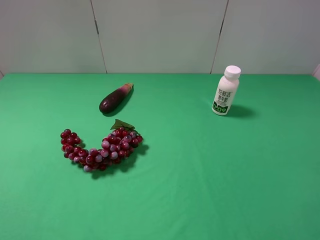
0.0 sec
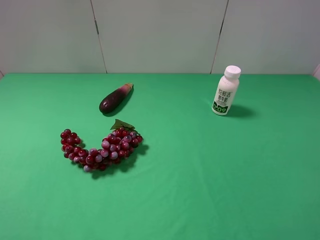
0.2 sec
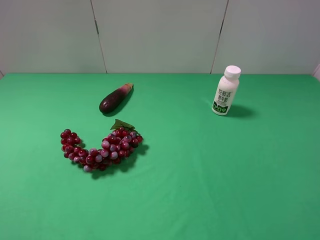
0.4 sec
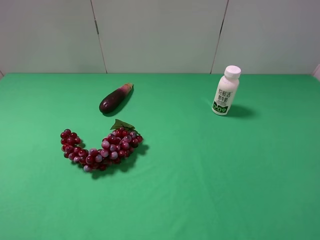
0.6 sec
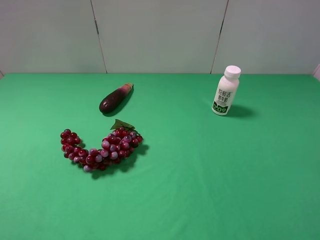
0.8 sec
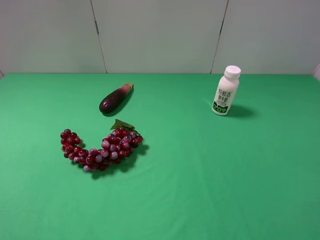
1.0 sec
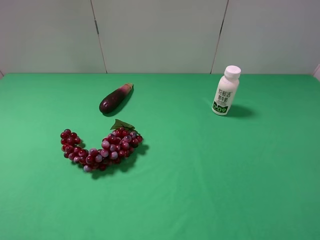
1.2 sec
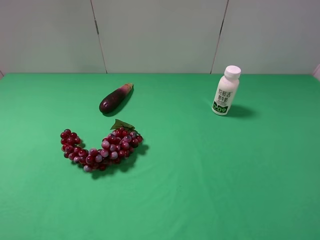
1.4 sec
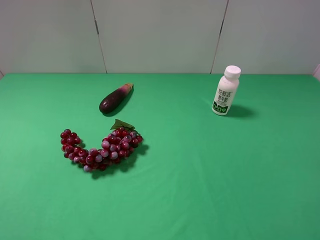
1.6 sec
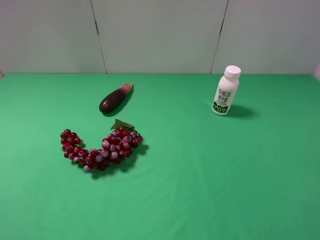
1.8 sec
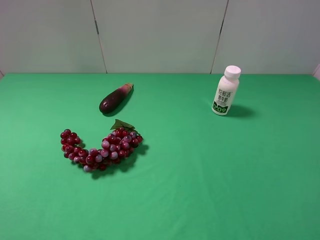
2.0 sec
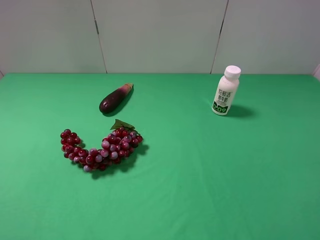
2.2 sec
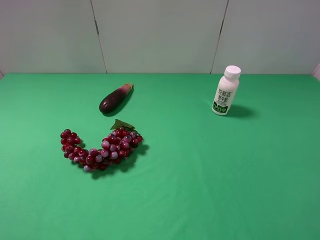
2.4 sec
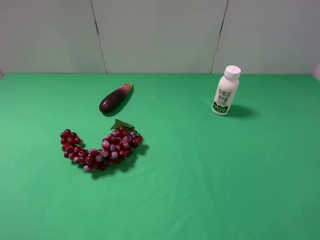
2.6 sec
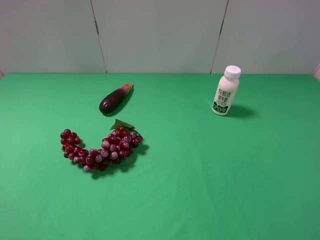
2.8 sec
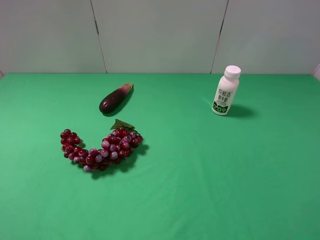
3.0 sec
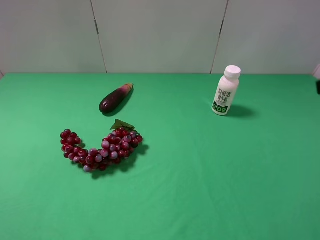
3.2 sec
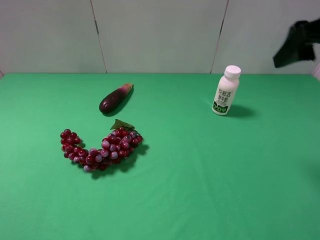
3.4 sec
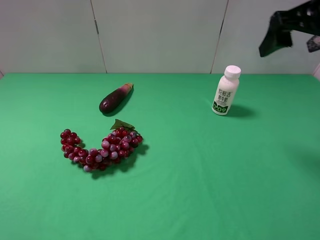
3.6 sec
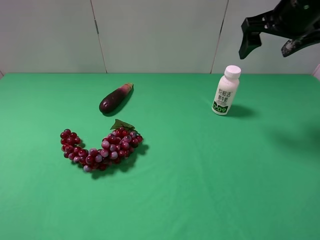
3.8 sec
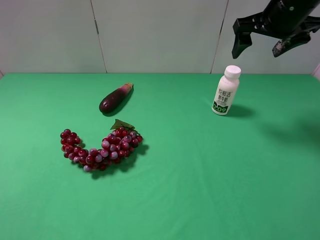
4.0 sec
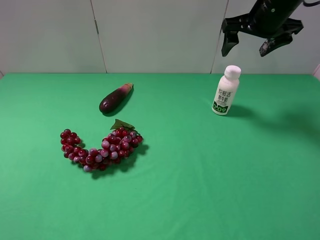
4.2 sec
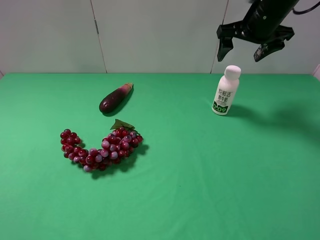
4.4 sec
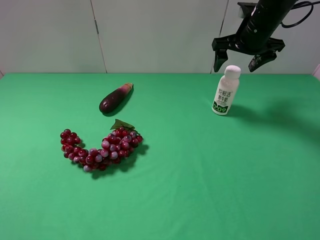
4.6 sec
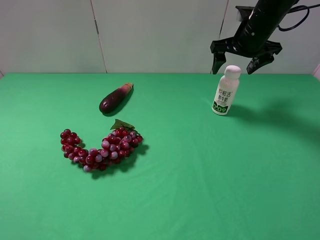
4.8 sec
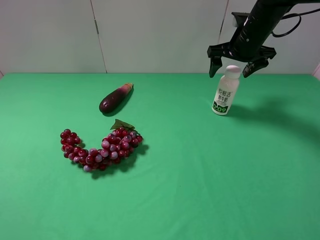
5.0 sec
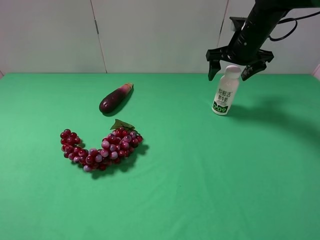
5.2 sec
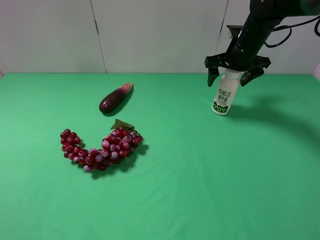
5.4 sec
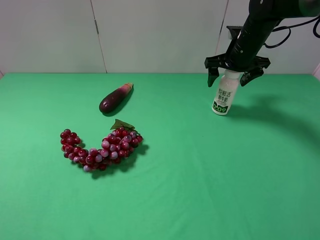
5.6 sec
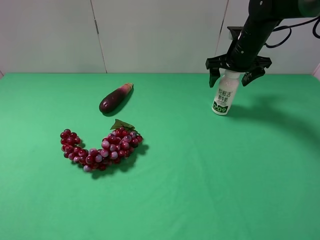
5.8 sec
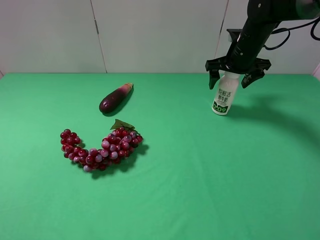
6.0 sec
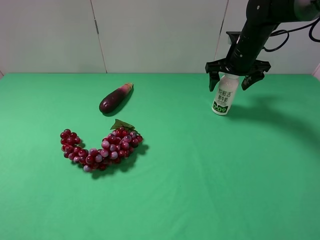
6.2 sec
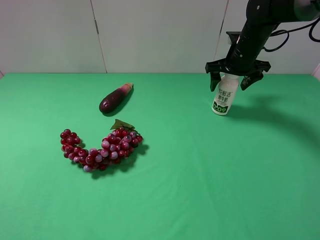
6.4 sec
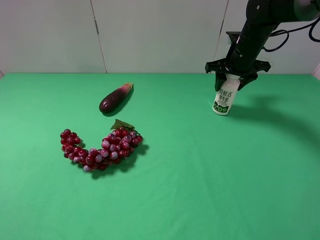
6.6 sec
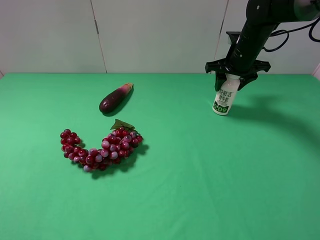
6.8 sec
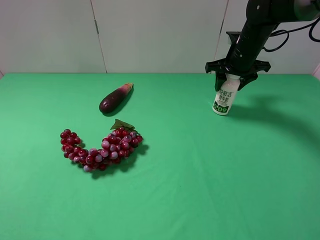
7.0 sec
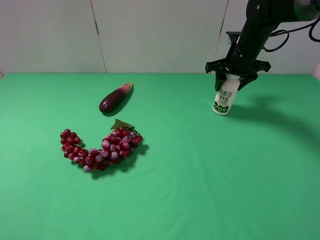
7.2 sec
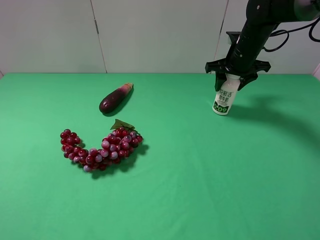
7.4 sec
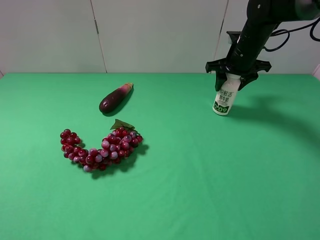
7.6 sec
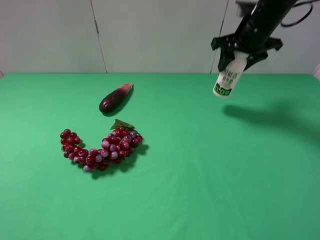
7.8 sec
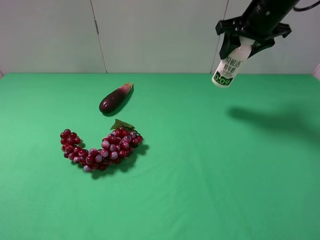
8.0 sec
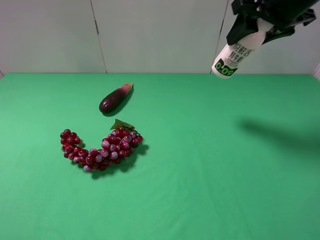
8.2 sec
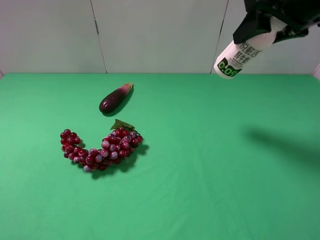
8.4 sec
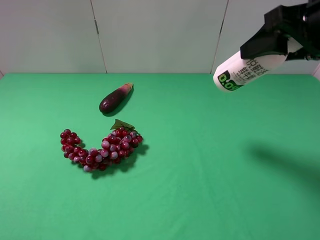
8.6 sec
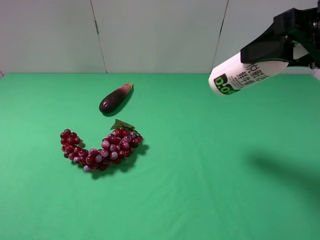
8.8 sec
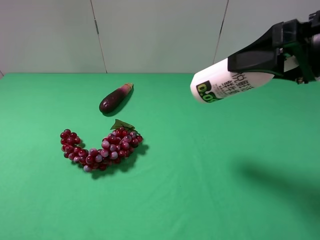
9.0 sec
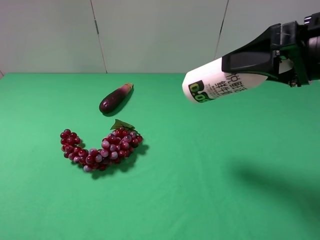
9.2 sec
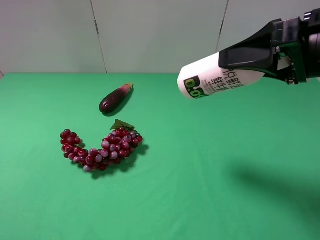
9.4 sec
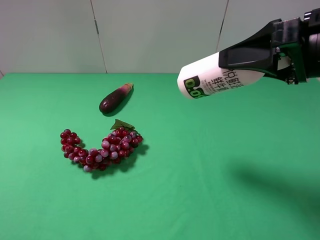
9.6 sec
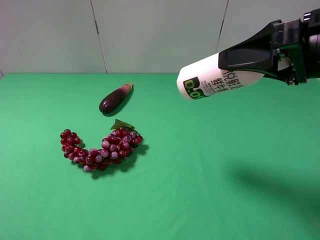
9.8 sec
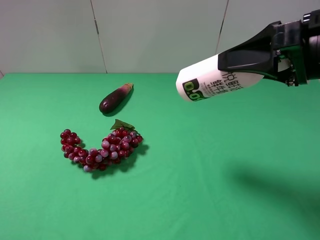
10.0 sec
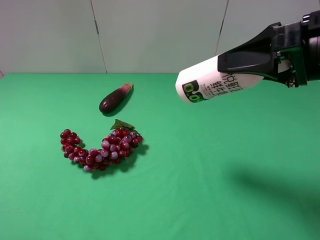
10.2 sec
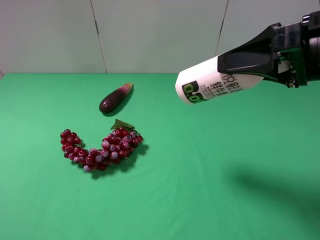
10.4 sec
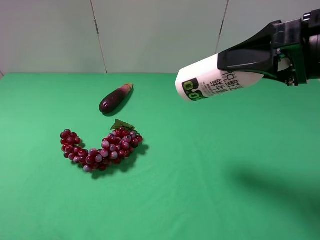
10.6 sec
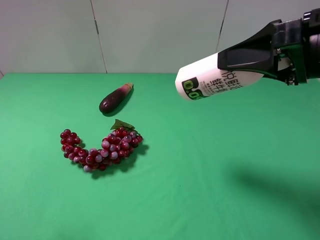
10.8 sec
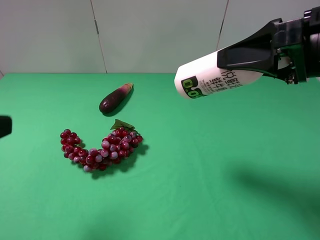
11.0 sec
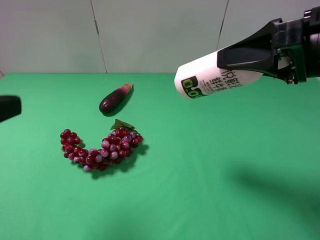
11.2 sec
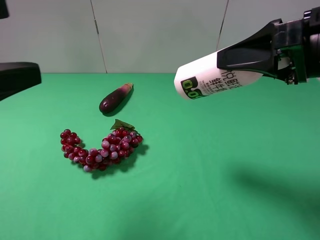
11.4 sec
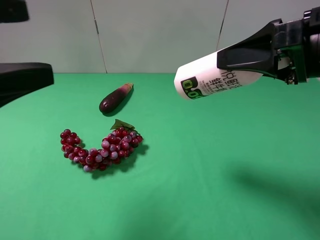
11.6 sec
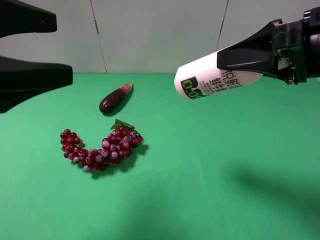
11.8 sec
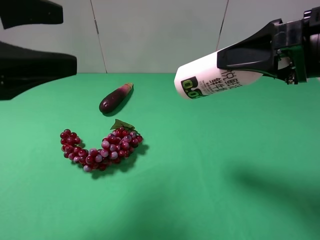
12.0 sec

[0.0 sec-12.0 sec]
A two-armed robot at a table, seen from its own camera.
Task of the whole recording: use the right gripper to pick up the item and transfer it from the right gripper to the left gripper.
0.0 sec to 1.6 sec: Both grippers stay about where they are.
3.0 sec to 4.4 sec: The right gripper heads forward, covering roughly 30 cm.
4.4 sec to 6.0 sec: The right gripper is displaced downward by approximately 10 cm.
6.0 sec to 7.6 sec: The right gripper closes.
7.6 sec to 9.0 sec: The right gripper moves backward and upward, approximately 25 cm.
9.0 sec to 10.4 sec: The grippers make only small movements.
10.4 sec to 12.0 sec: The left gripper moves forward and to the right, some 20 cm.

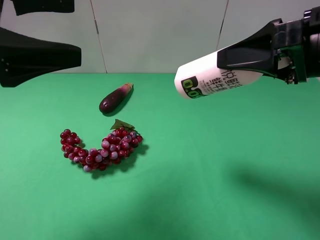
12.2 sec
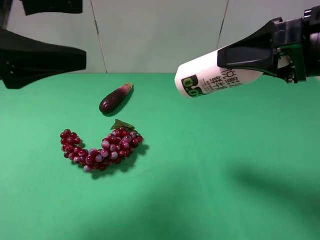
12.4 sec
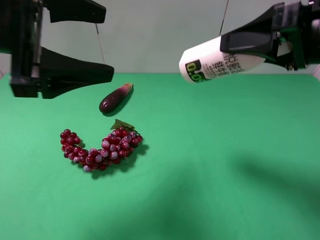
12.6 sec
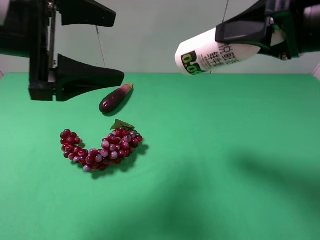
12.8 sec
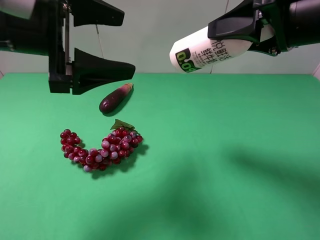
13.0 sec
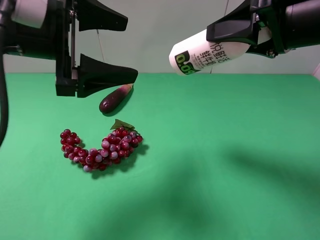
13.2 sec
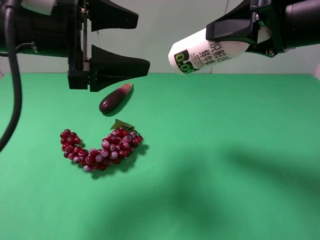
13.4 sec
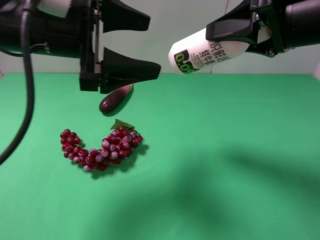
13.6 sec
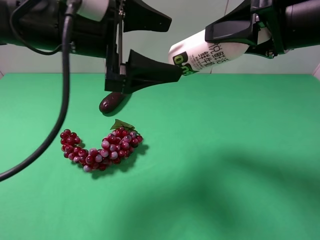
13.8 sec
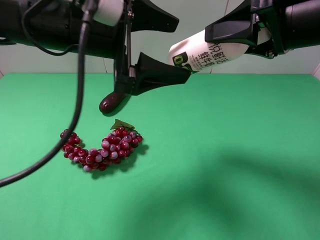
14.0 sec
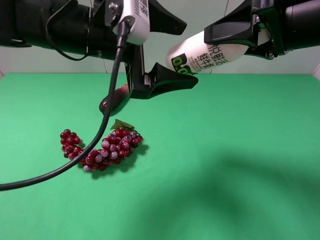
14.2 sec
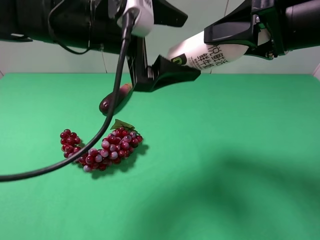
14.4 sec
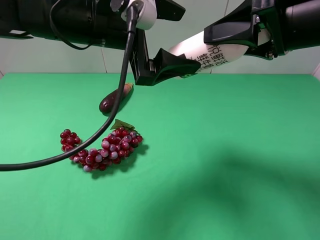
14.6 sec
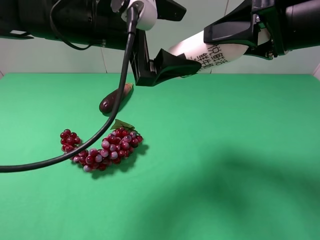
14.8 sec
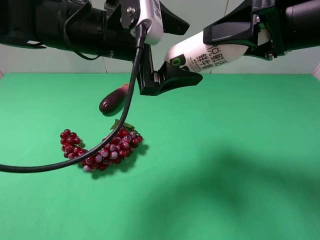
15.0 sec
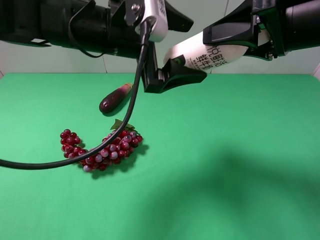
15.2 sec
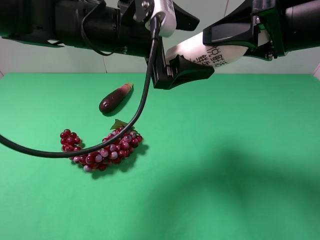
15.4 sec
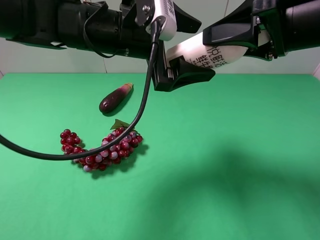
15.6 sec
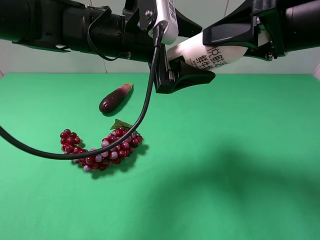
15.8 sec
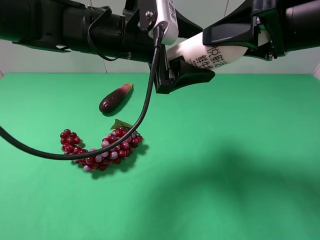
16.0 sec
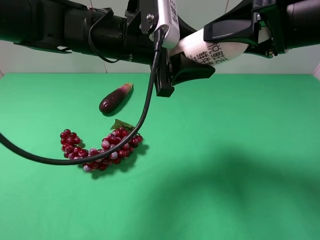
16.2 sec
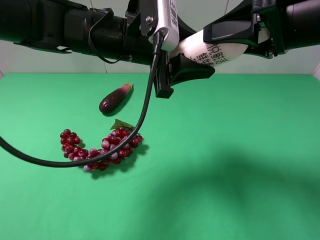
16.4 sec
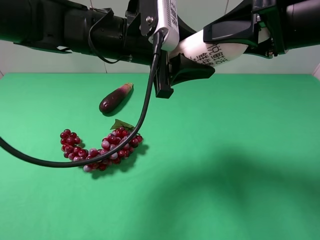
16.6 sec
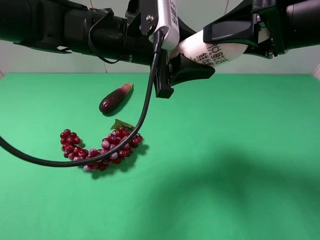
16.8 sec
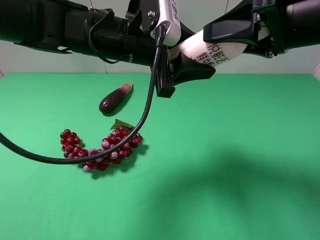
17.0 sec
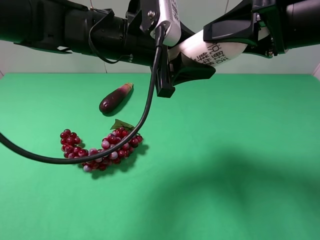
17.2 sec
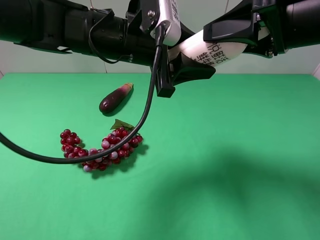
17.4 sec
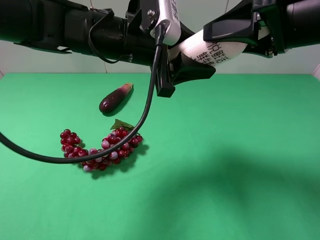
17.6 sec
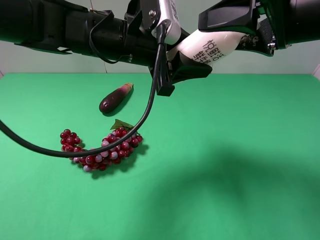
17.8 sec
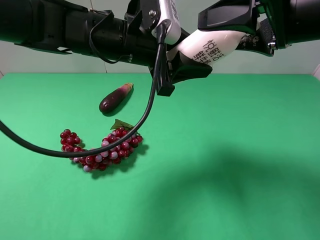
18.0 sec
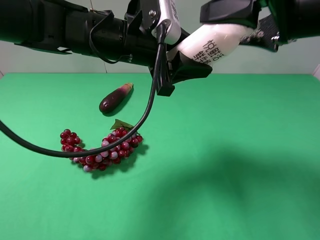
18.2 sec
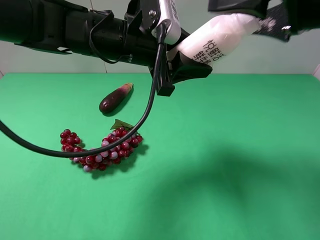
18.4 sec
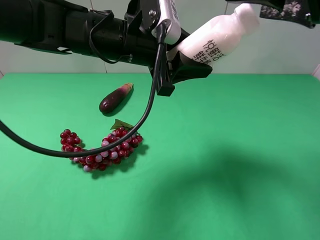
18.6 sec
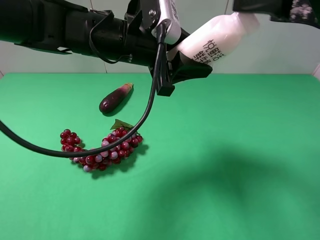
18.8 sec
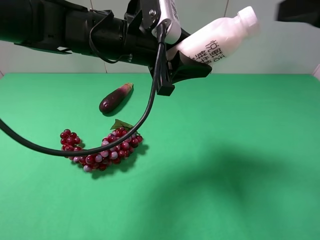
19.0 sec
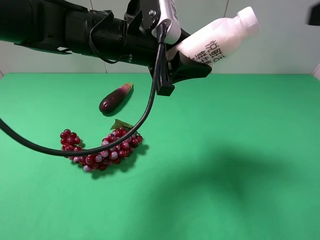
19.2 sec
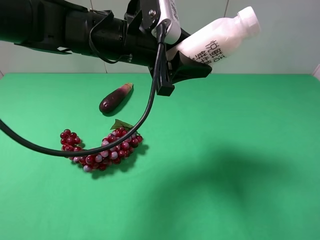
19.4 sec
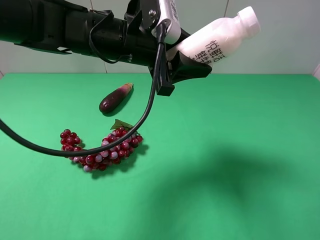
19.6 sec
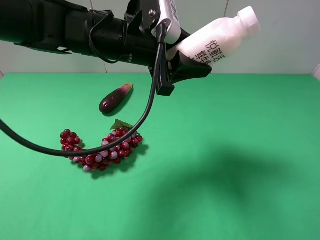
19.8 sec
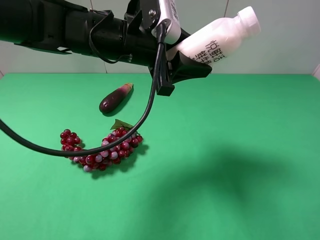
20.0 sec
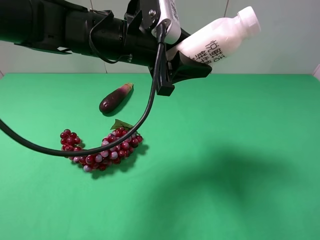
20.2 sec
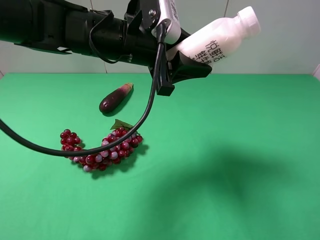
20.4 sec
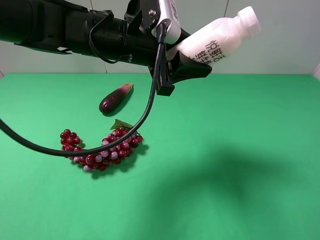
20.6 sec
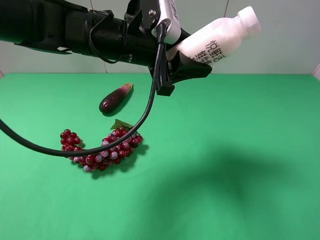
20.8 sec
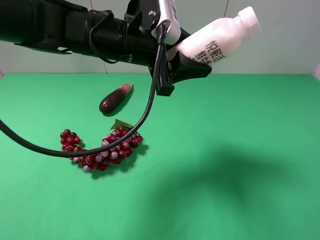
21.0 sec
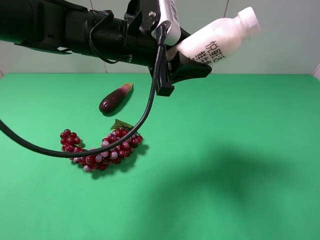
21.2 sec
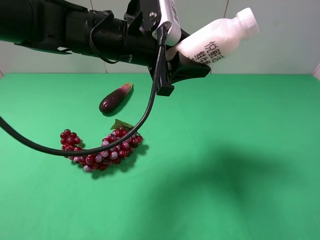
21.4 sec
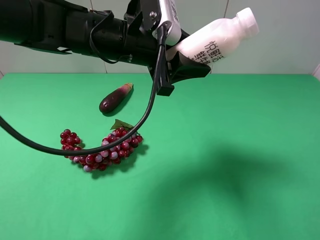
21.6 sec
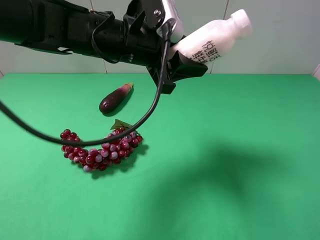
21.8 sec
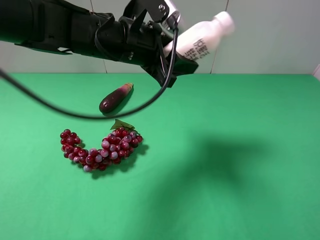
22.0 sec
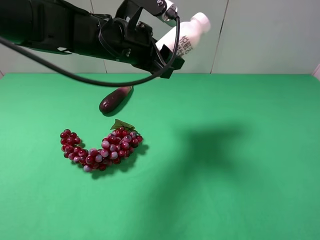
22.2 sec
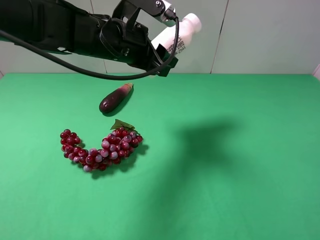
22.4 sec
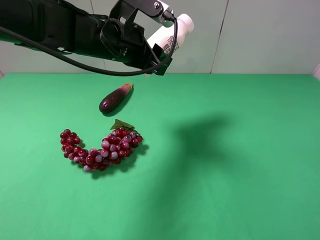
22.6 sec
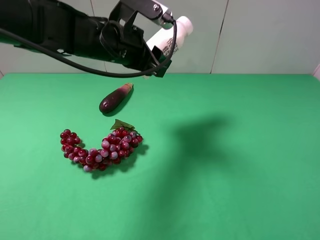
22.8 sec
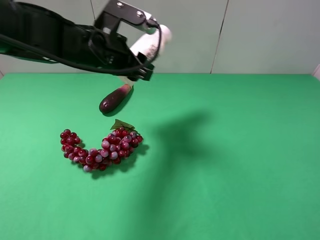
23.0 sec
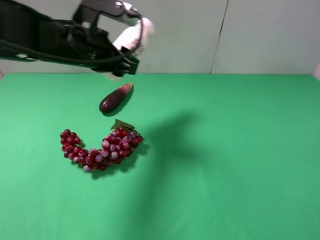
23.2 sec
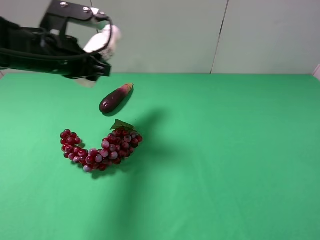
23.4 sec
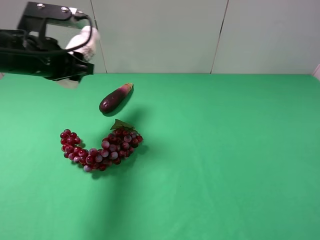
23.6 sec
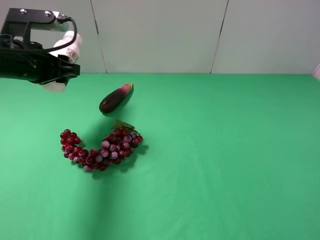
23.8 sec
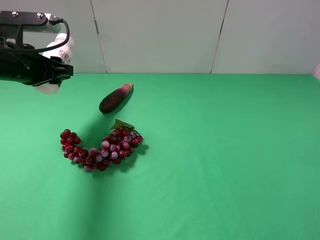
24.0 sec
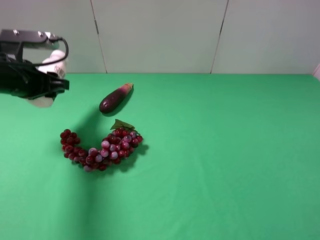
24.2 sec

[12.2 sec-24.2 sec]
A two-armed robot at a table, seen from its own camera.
Task of the whole recording: use the right gripper to pick up the item and transfer it from the right gripper to the left gripper.
Step, 12.2 sec to 18.0 sec: Pass the milk to the left gripper.
12.2 sec to 13.8 sec: The left gripper shifts some 15 cm to the right and forward.
13.8 sec to 15.2 sec: There are only small adjustments of the grippers.
15.2 sec to 16.6 sec: The left gripper closes its fingers.
16.6 sec to 18.2 sec: The right gripper opens its fingers.
18.2 sec to 19.8 sec: The right gripper shifts about 20 cm backward and to the right.
21.2 sec to 22.6 sec: The left gripper changes place by some 5 cm.
22.6 sec to 24.2 sec: The left gripper shifts some 20 cm to the left.
